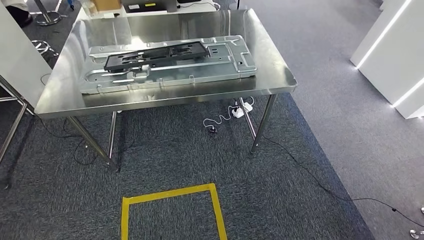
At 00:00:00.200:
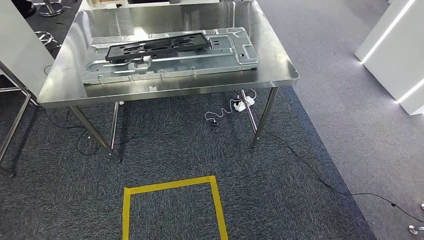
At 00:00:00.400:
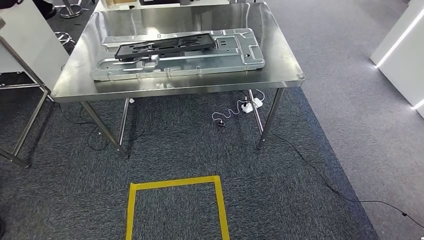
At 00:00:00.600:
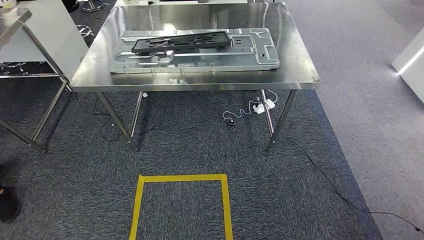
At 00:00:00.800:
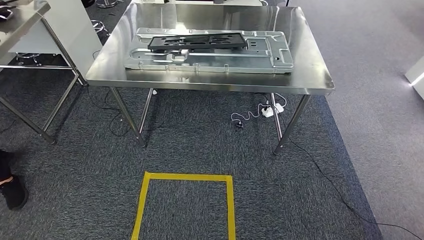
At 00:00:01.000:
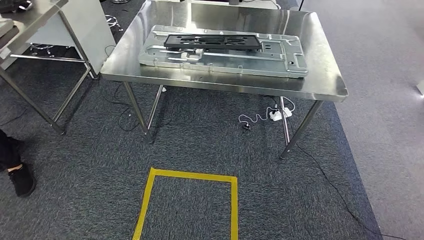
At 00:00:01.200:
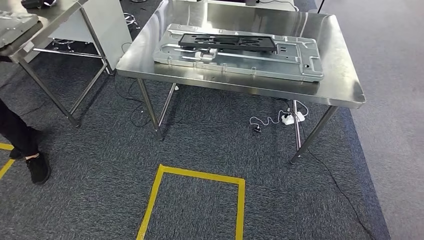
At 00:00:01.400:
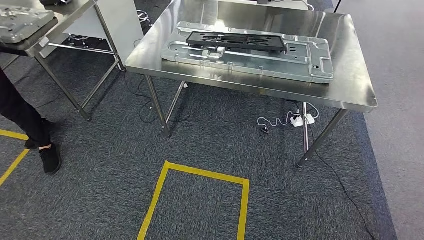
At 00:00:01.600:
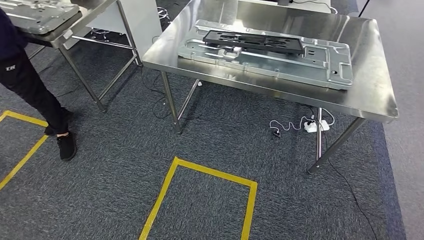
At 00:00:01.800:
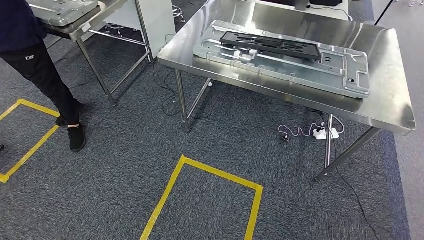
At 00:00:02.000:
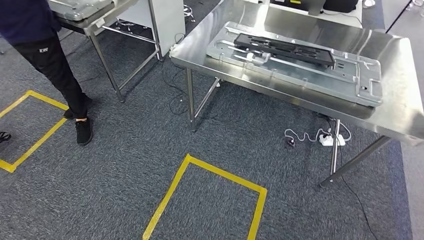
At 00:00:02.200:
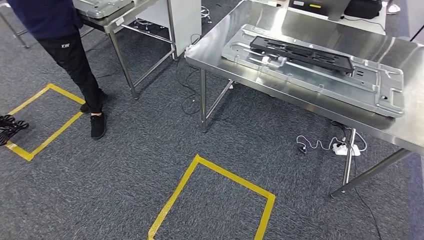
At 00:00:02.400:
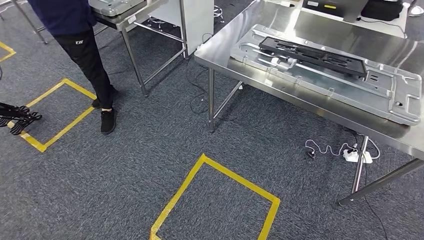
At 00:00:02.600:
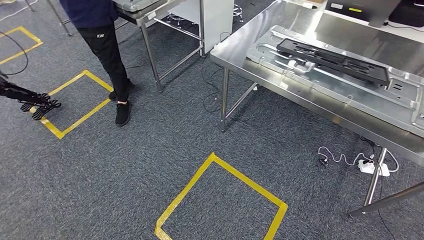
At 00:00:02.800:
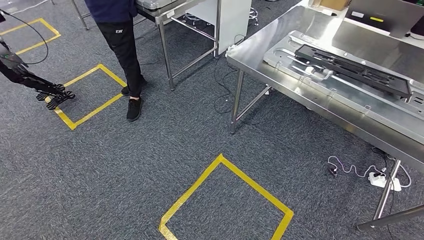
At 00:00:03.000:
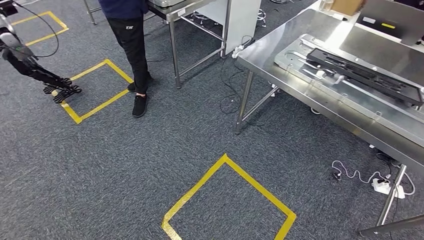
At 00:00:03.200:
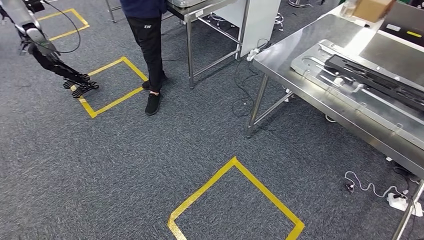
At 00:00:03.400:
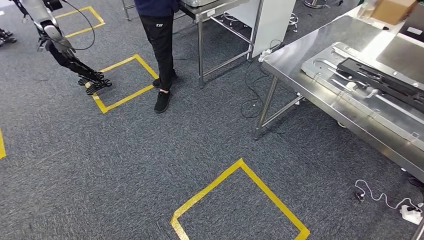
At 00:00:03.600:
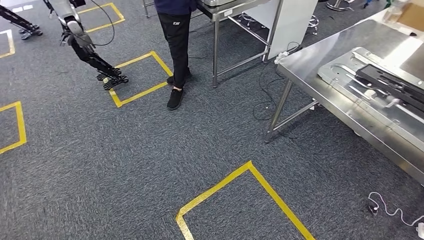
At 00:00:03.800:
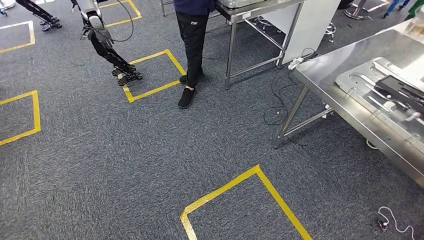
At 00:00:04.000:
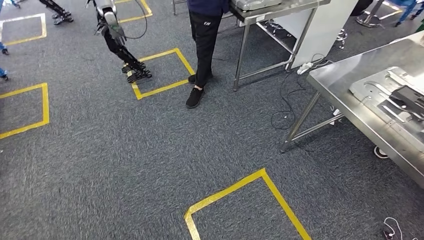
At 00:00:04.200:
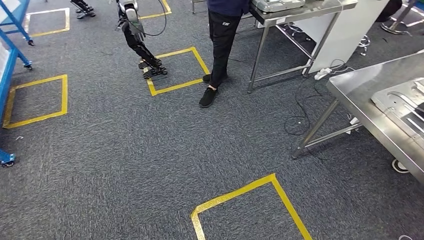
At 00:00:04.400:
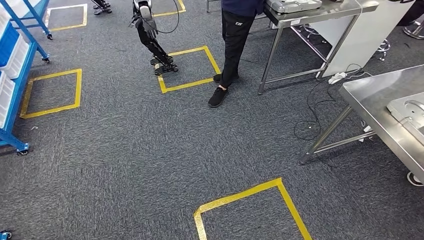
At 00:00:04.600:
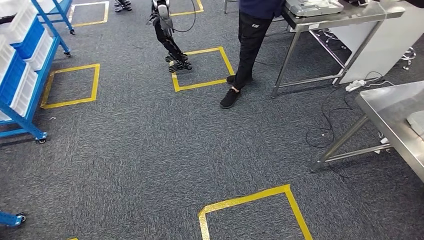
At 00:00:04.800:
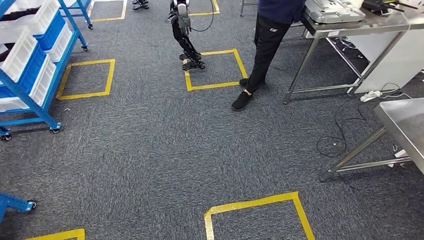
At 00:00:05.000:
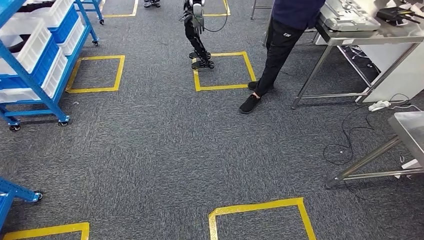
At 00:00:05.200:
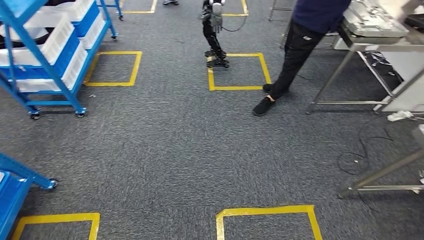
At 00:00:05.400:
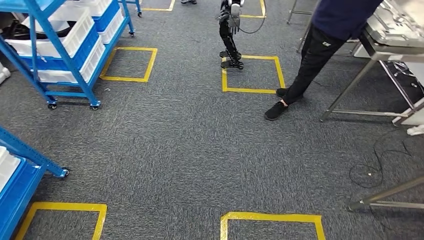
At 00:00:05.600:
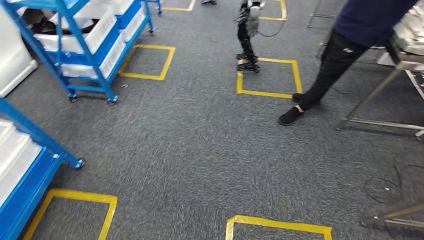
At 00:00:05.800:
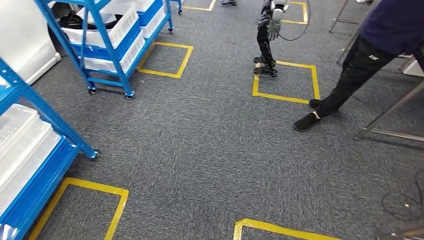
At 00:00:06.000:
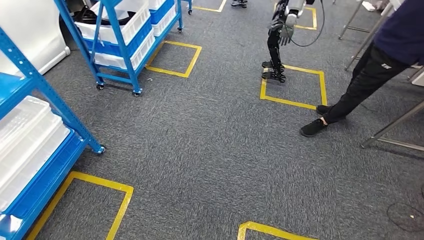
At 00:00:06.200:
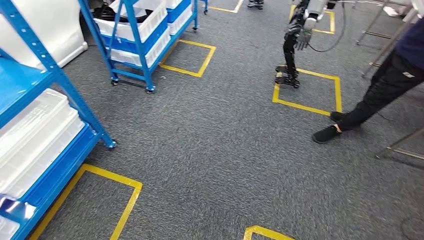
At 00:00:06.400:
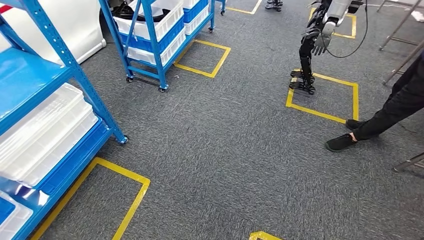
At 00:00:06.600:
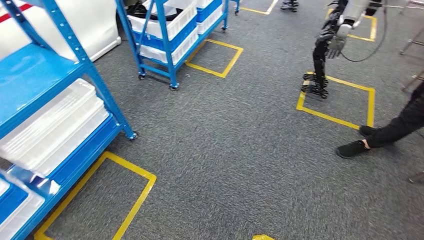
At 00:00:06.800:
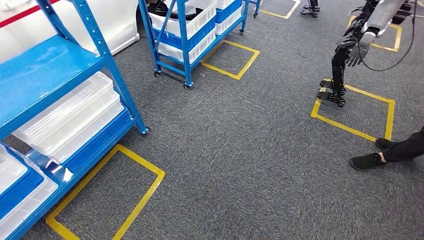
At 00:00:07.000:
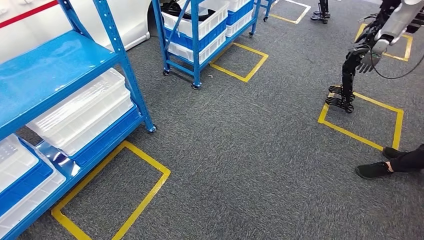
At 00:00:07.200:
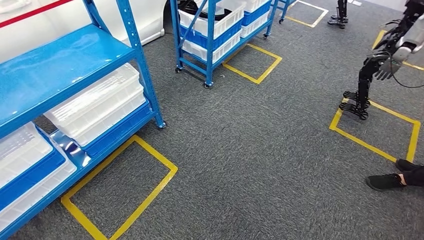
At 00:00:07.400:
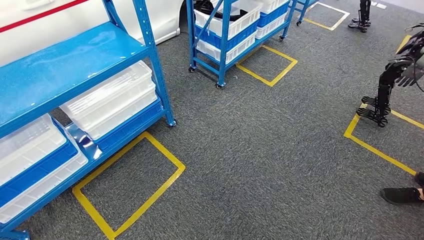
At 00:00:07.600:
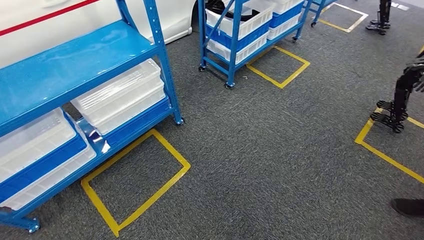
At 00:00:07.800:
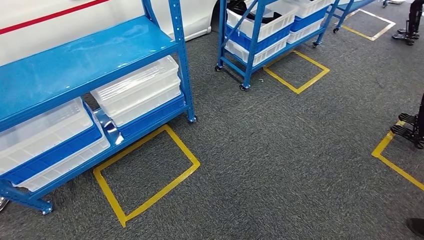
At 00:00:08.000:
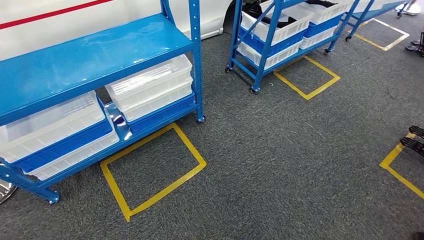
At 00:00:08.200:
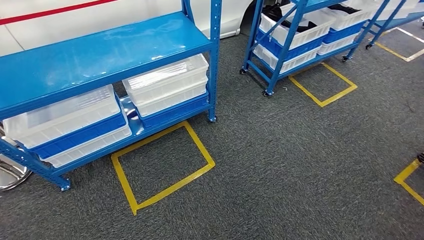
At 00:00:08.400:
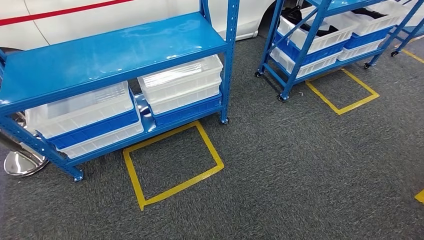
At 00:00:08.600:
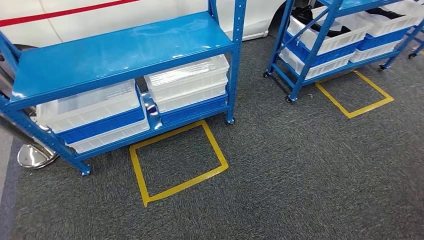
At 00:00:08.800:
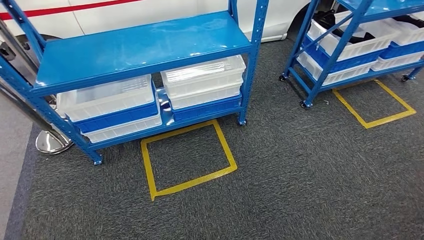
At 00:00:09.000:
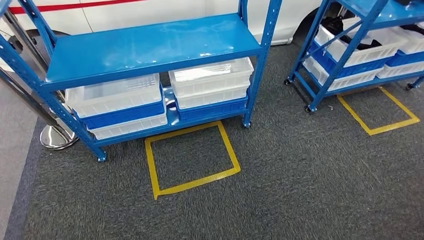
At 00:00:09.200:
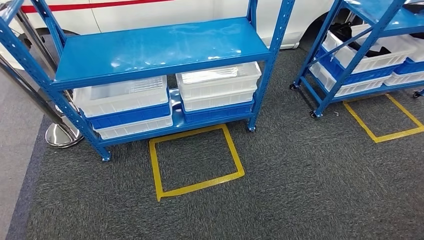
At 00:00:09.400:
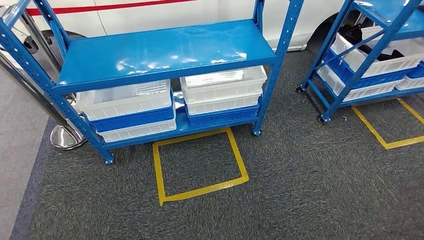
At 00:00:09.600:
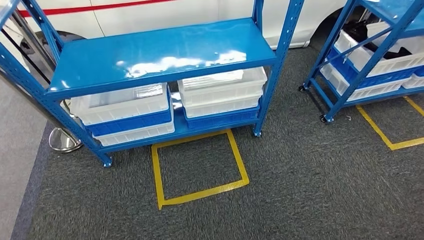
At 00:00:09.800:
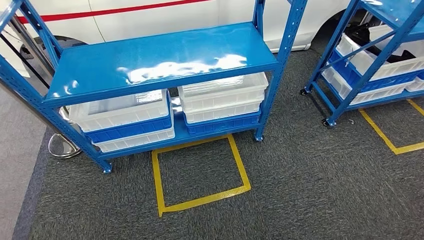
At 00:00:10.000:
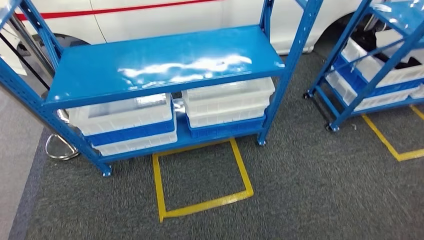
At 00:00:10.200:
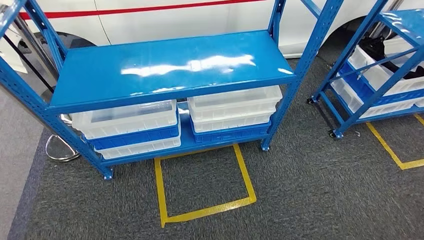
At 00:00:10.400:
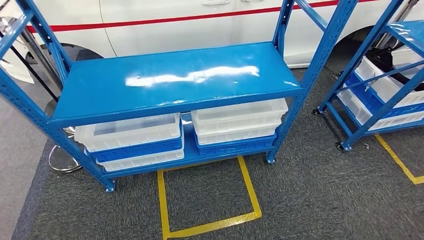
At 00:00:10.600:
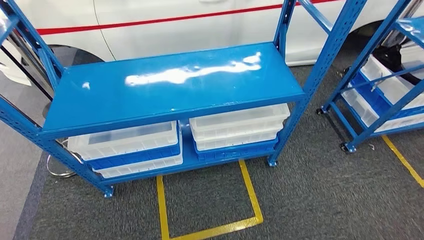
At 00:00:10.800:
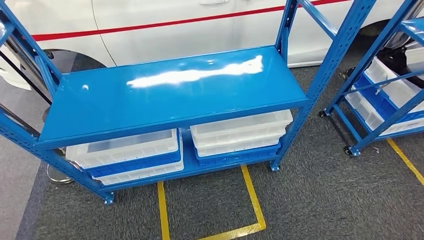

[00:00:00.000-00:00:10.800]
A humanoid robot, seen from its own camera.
Step, 00:00:00.600 to 00:00:08.200: Return to the initial position at the shelf.
